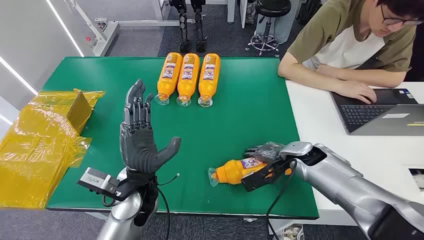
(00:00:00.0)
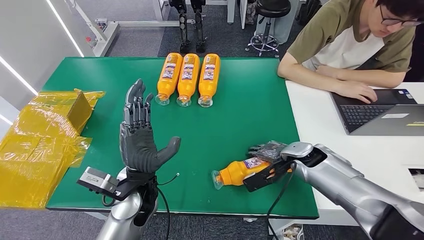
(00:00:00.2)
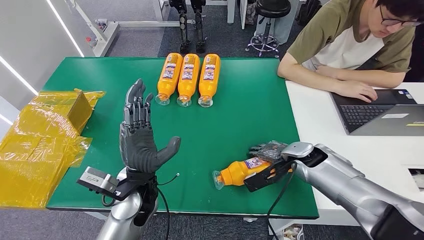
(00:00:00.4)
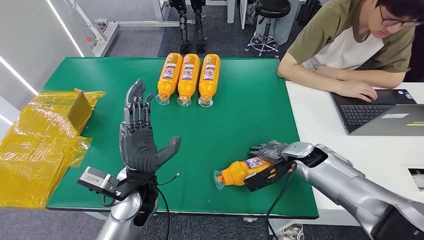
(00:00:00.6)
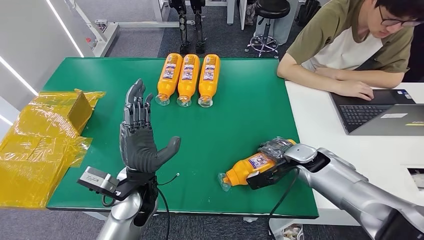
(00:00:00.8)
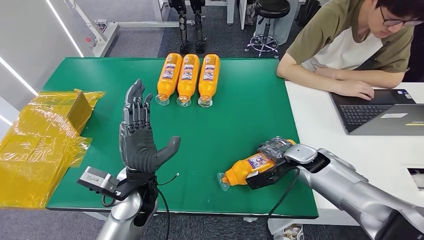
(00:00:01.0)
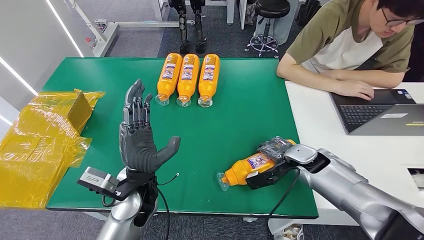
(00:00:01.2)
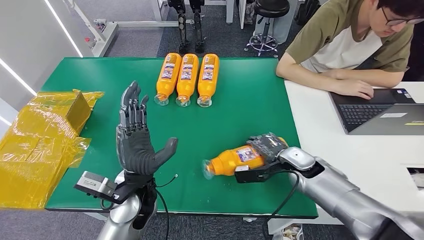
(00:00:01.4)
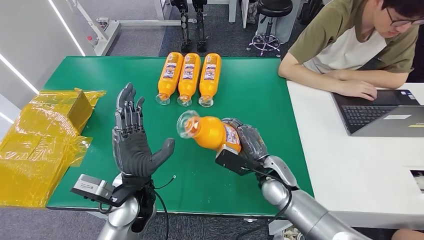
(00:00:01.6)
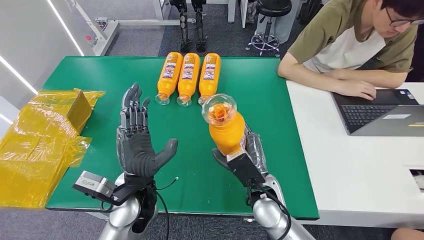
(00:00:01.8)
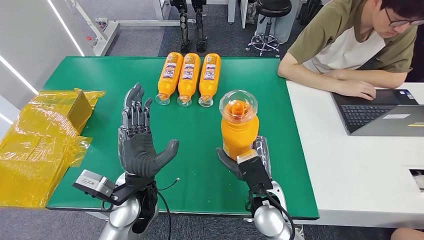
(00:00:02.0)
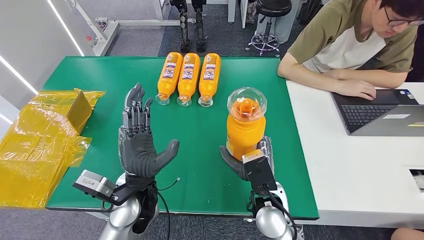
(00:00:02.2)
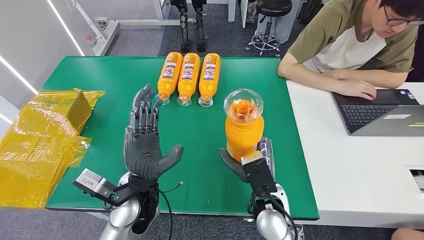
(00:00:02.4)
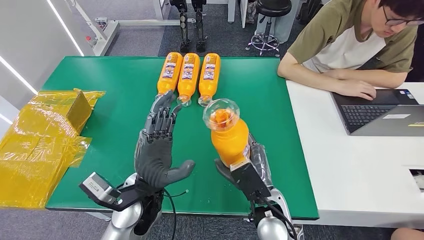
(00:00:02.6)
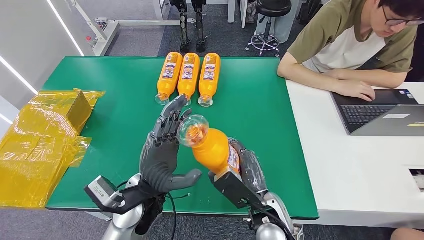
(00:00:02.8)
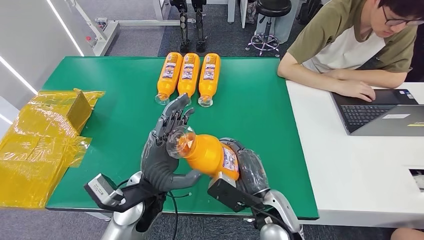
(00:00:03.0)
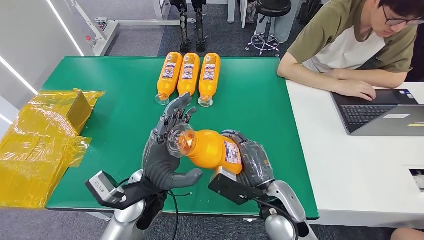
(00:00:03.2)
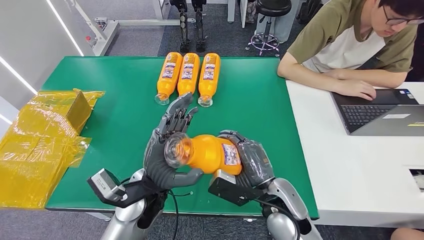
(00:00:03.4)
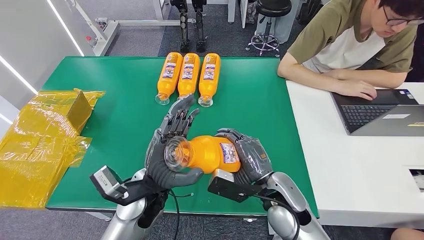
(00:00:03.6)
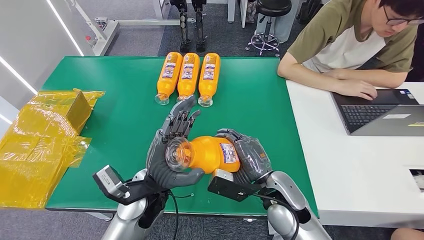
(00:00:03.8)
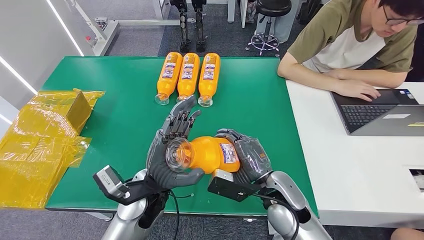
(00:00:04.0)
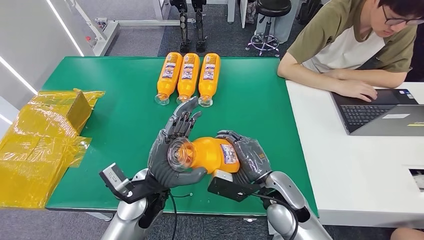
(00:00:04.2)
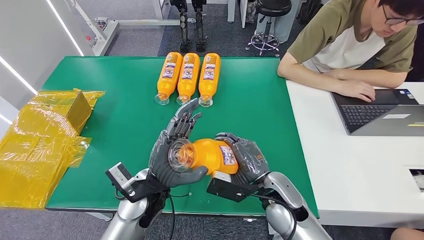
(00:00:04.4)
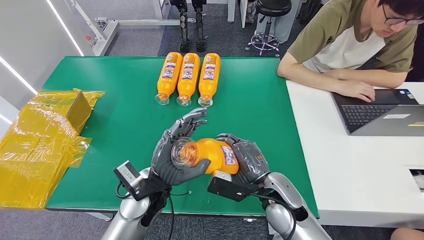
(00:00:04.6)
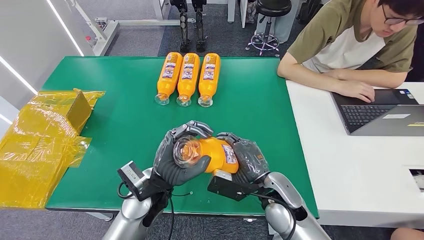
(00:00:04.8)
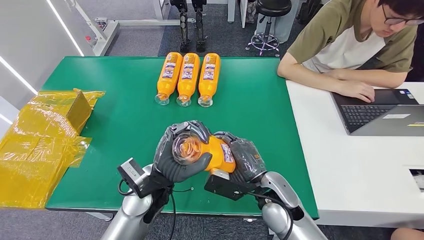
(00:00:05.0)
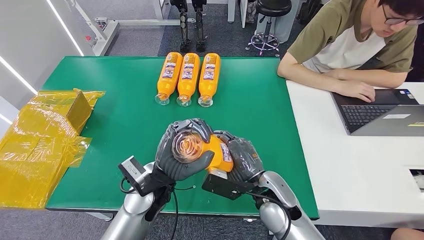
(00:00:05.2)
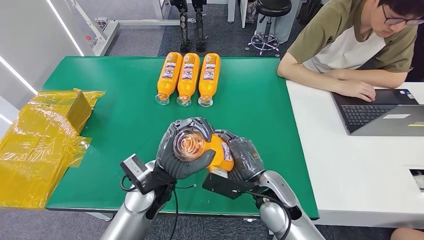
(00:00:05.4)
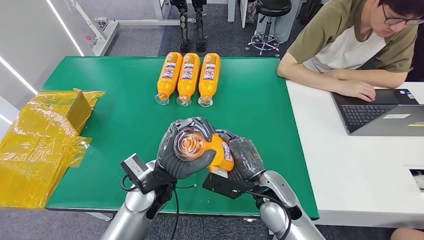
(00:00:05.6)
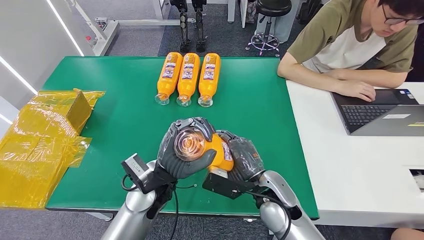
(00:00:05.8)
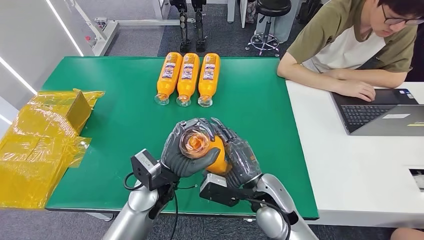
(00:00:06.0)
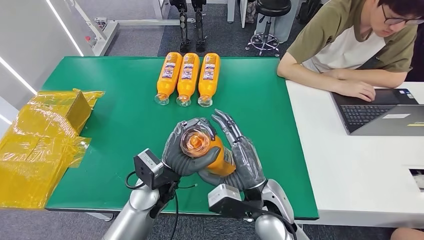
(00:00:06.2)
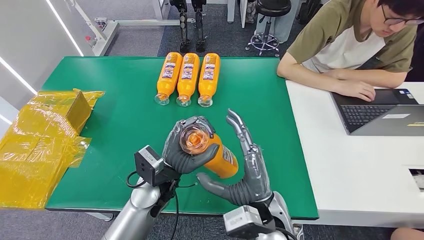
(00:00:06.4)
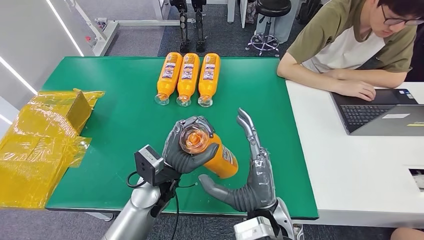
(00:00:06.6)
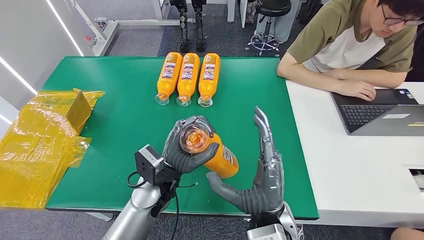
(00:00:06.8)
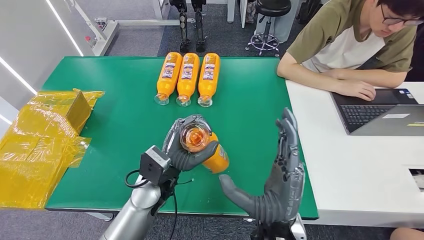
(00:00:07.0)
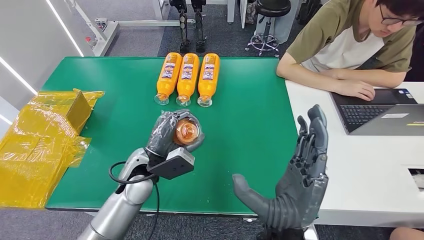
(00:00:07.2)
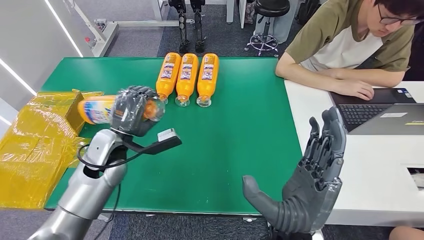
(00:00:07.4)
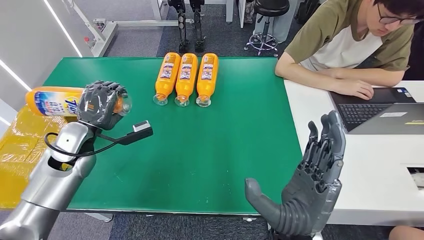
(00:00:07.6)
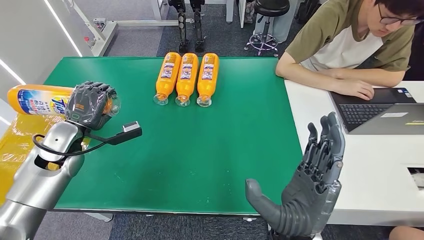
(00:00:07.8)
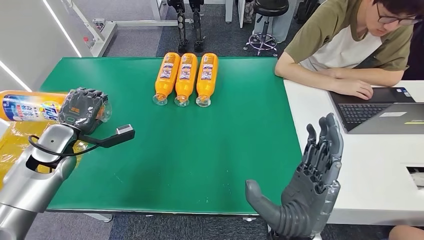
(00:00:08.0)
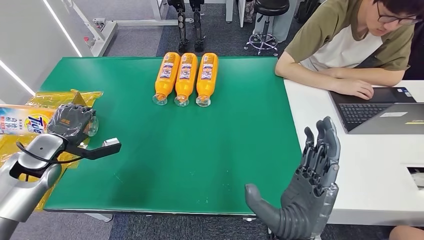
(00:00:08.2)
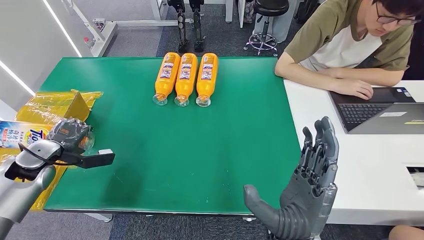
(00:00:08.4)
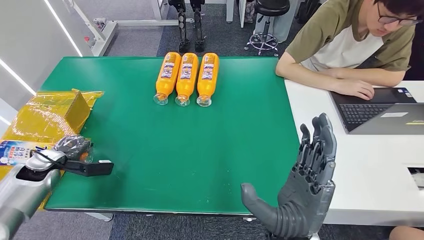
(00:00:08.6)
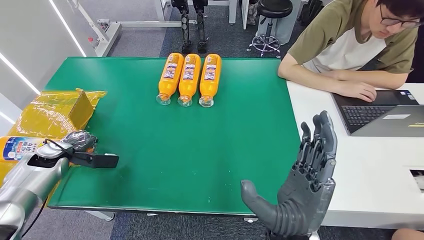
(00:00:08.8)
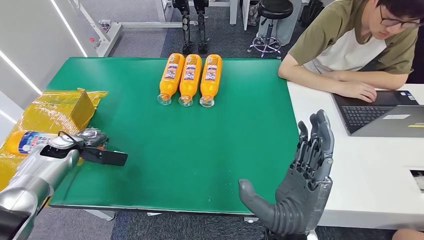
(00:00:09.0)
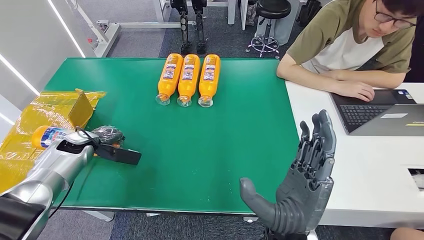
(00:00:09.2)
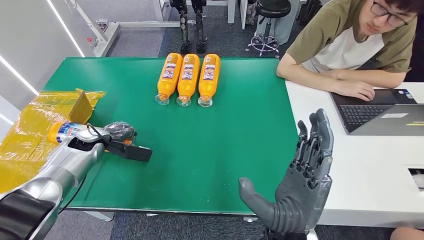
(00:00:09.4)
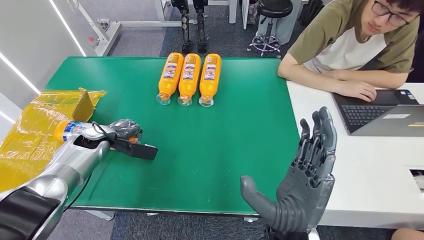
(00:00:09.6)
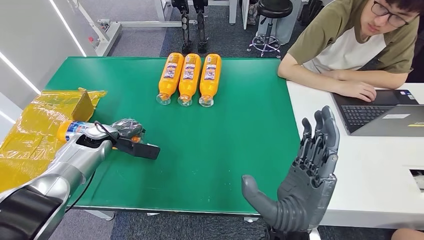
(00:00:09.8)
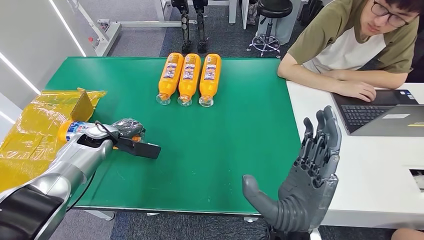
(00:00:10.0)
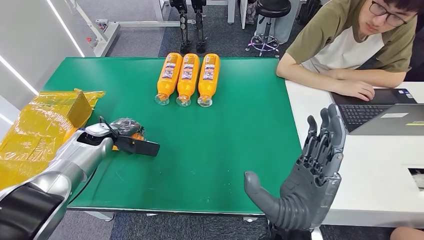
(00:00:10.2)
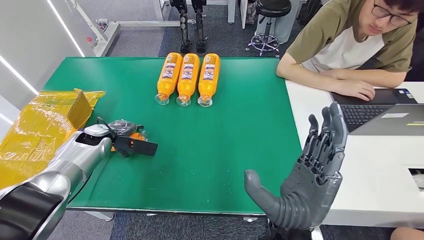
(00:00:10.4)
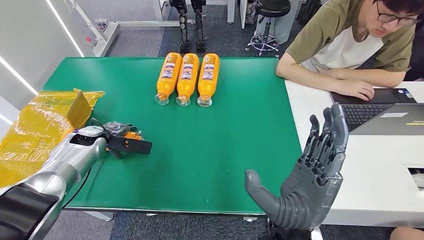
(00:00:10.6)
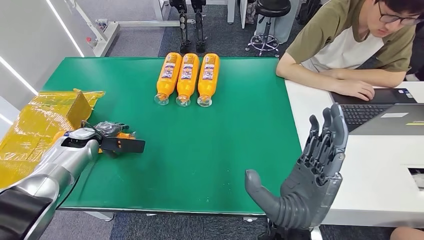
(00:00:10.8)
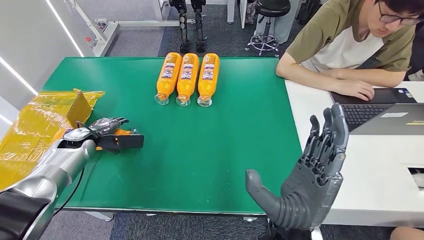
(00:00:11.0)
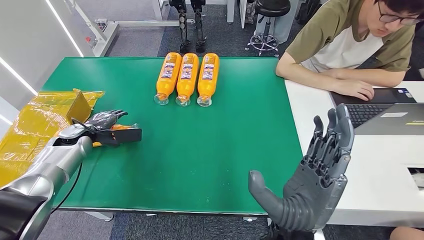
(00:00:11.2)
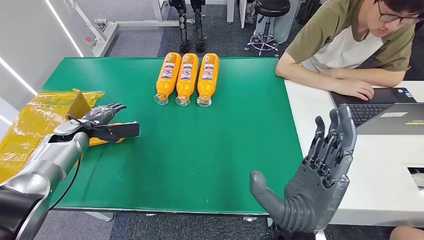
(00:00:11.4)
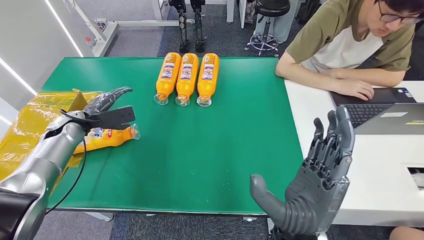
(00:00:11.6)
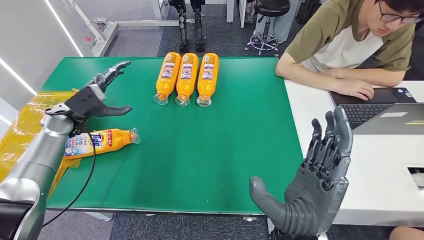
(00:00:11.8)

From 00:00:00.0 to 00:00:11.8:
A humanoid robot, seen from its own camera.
Step, from 00:00:00.0 to 00:00:04.2: Pick up the bottle from the table.
Step, from 00:00:04.6 to 00:00:11.8: Turn the bottle to the front side.
From 00:00:03.0 to 00:00:04.4: The right hand changes place by approximately 5 cm.
From 00:00:04.4 to 00:00:06.0: The hands make only small movements.
From 00:00:10.4 to 00:00:11.8: The left hand moves upward, roughly 5 cm.
